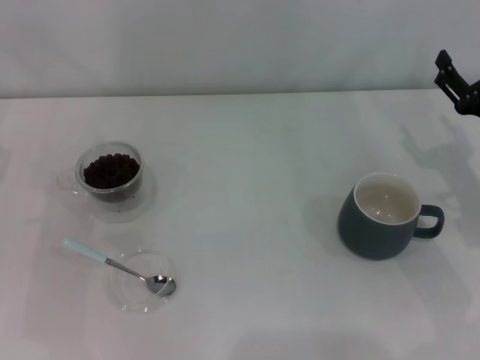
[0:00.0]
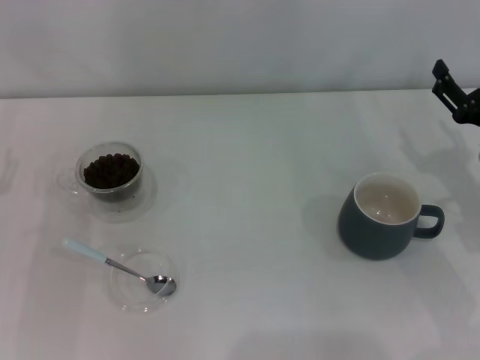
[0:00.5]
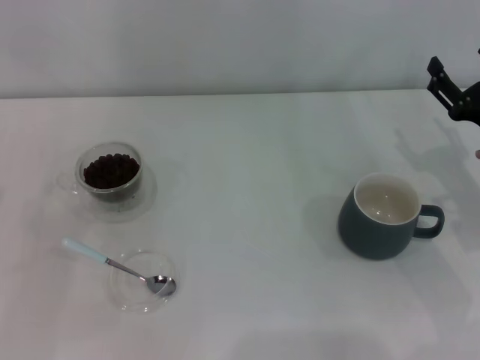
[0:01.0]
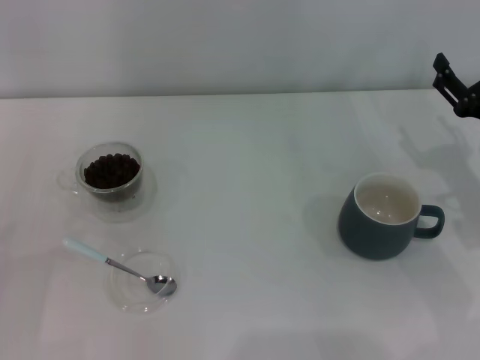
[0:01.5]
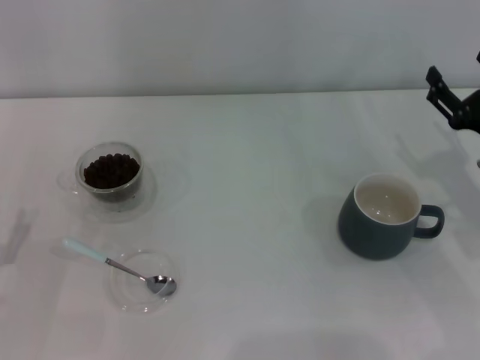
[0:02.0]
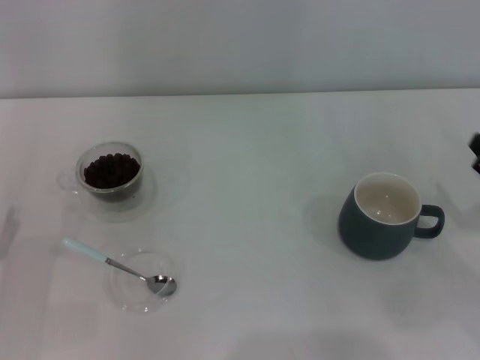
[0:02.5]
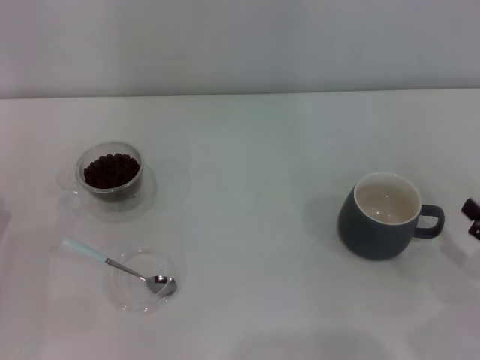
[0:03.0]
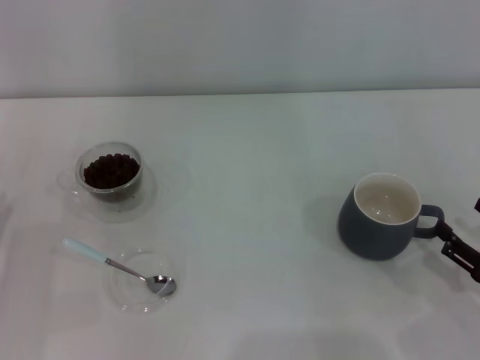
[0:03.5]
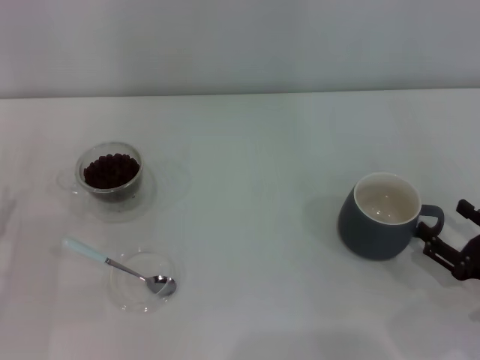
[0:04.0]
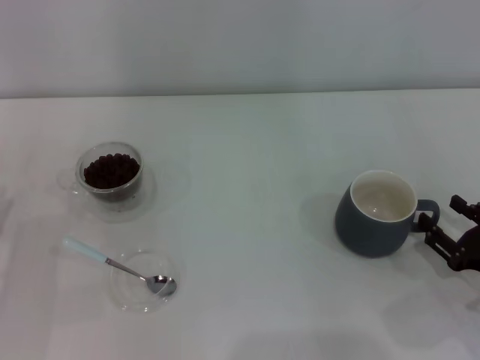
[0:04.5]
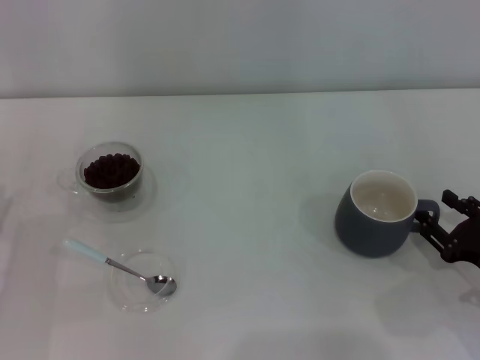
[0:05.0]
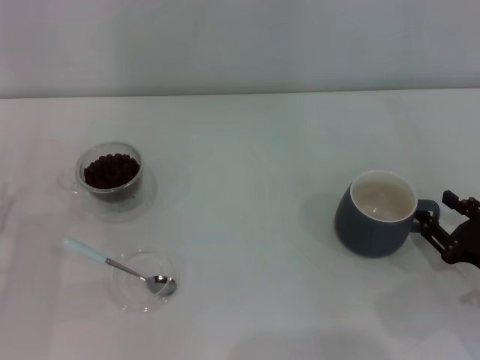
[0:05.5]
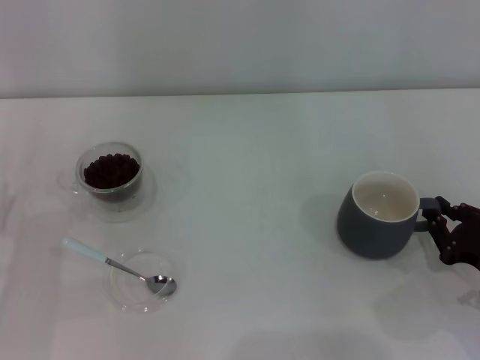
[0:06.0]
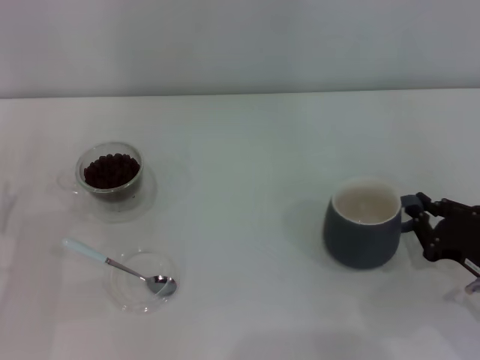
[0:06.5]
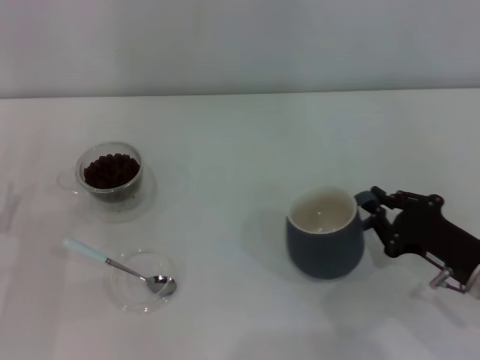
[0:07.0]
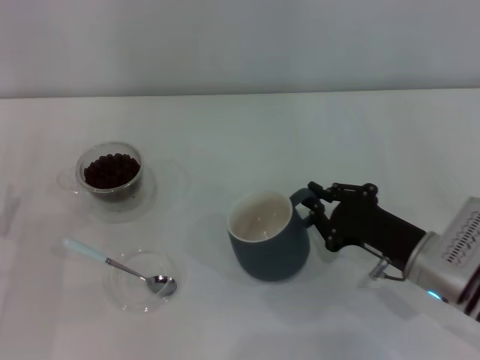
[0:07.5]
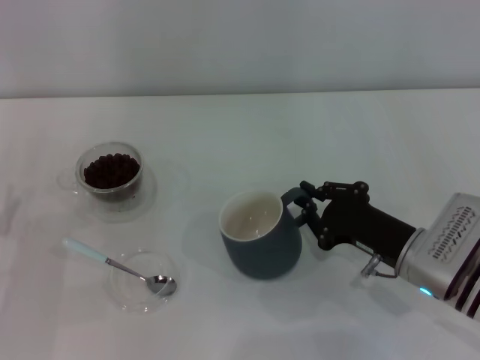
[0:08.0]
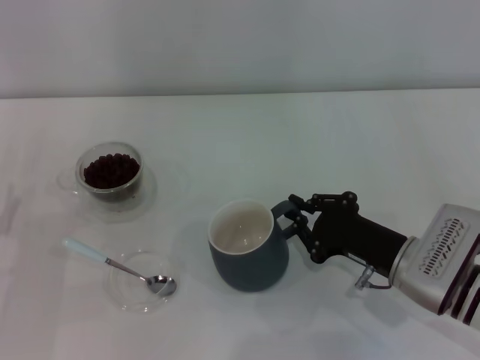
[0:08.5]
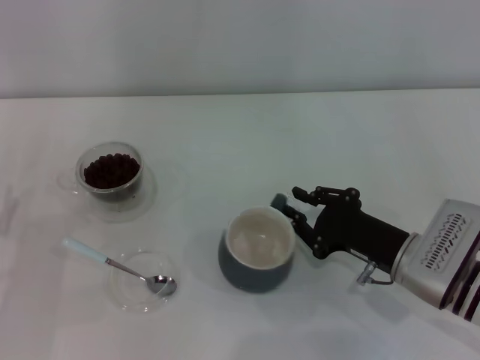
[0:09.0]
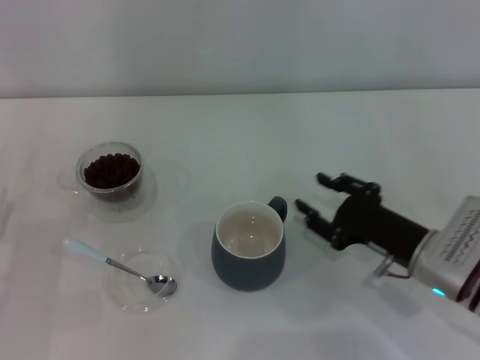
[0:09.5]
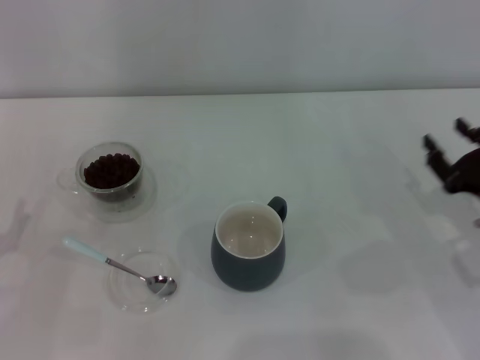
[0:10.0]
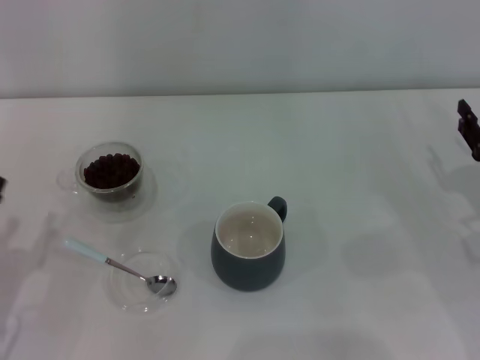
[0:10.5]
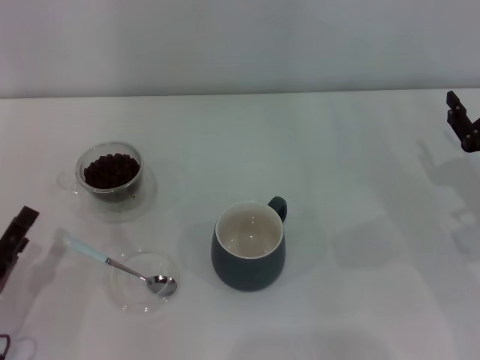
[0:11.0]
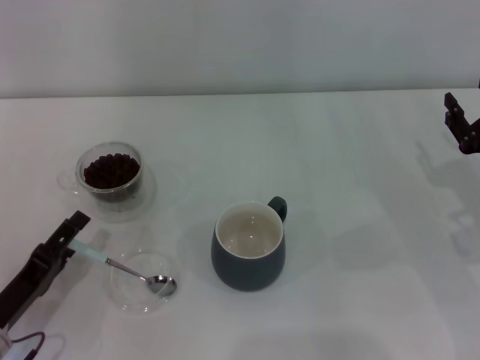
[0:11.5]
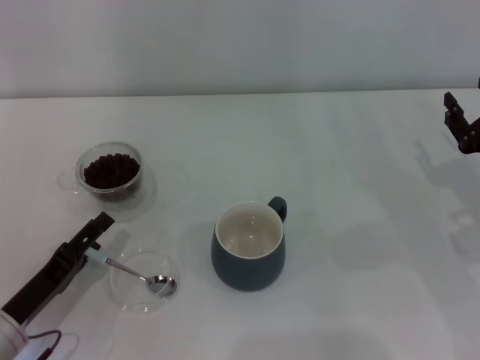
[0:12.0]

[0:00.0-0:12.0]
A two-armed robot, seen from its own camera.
Task of the whole recording: Use a blue spoon to take out the coffee beans from the glass and pour them into the gray cup.
Step, 0:00.0 to 0:09.0: Move the cup to the center of view with the left gripper.
0:02.0 to 0:04.0: The right gripper heads backward and downward, covering roughly 15 cm.
0:04.0 to 0:06.0: The right gripper closes.
0:06.0 to 0:08.0: The right gripper heads to the left and forward, covering about 10 cm.
0:08.0 to 0:10.0: The right gripper travels to the right by about 10 cm, and opens.
0:10.0 to 0:12.0: The left gripper is displaced to the right by some 5 cm.

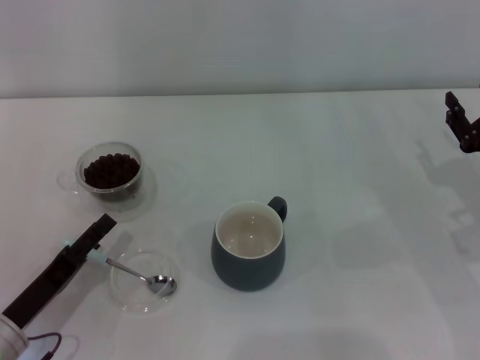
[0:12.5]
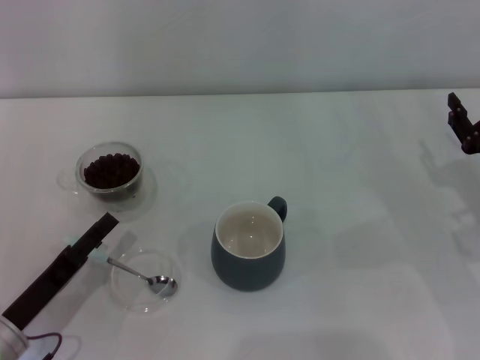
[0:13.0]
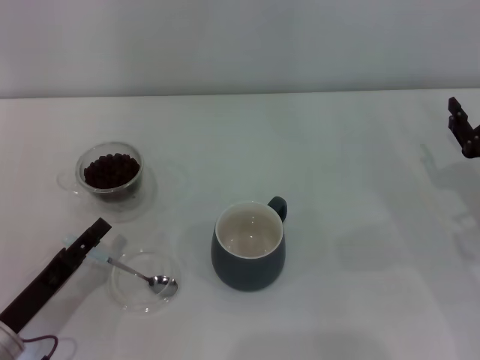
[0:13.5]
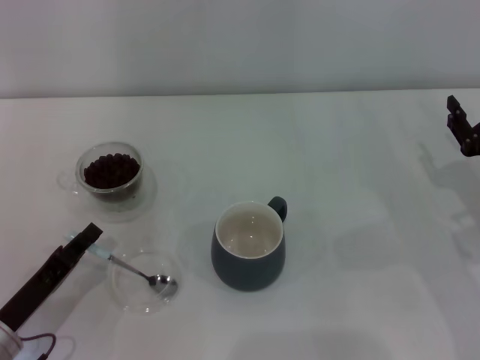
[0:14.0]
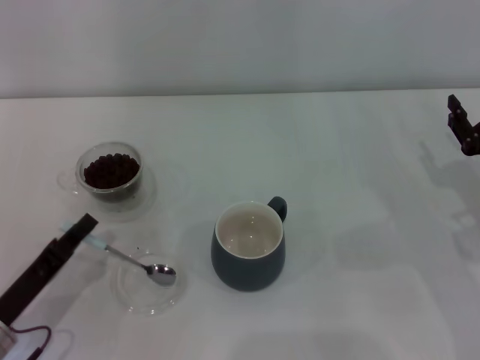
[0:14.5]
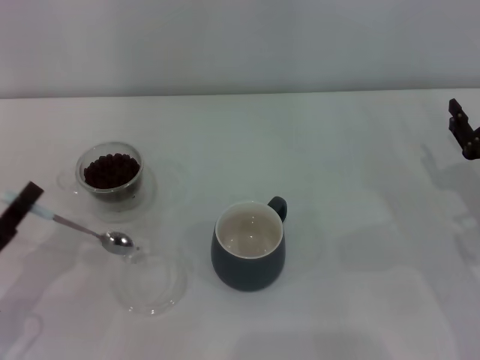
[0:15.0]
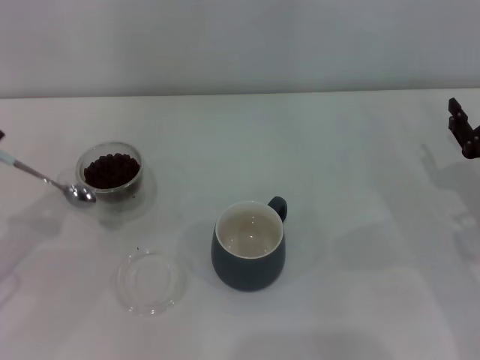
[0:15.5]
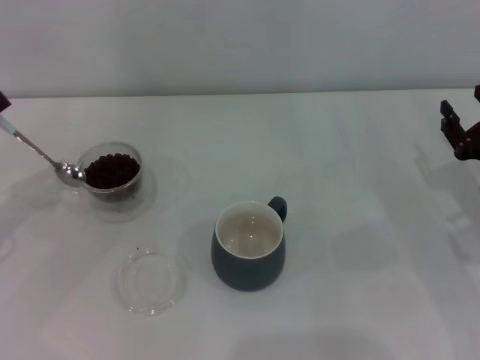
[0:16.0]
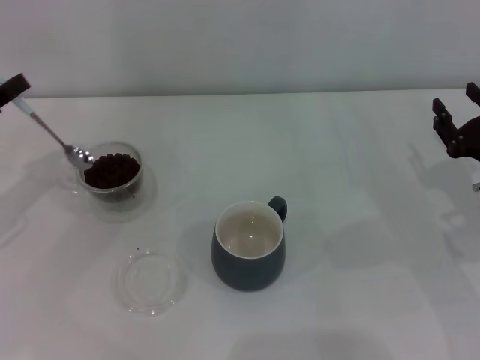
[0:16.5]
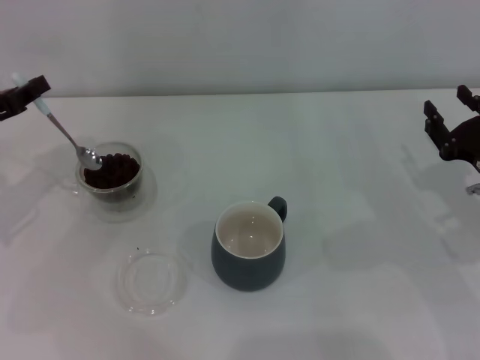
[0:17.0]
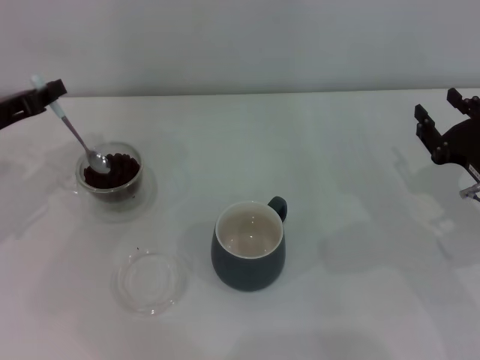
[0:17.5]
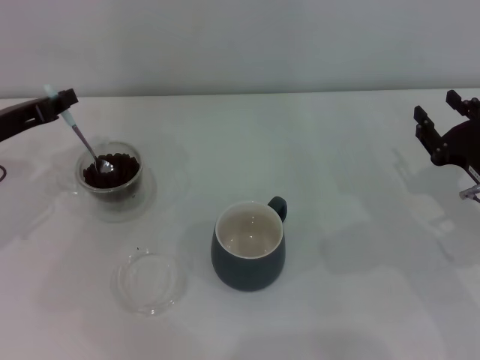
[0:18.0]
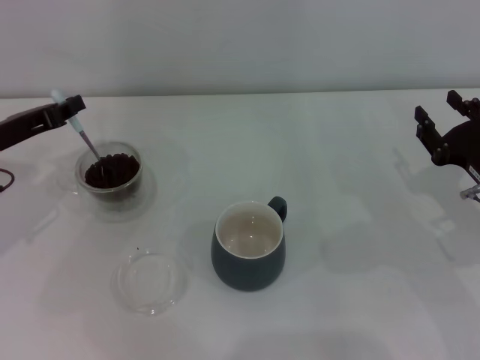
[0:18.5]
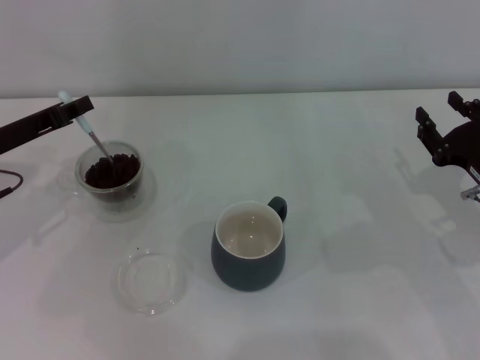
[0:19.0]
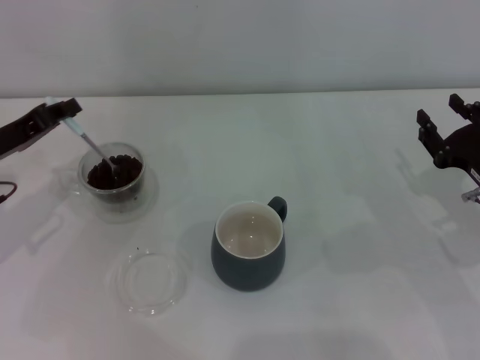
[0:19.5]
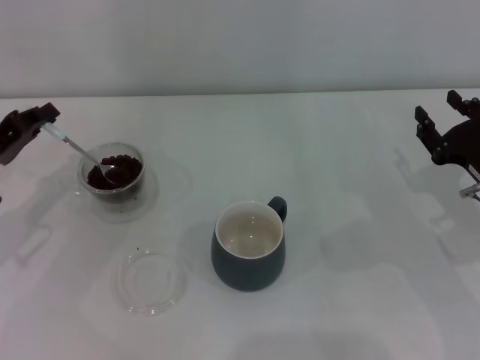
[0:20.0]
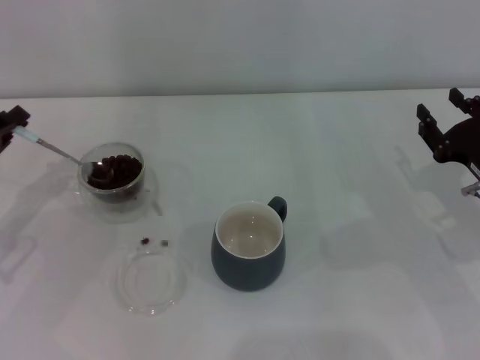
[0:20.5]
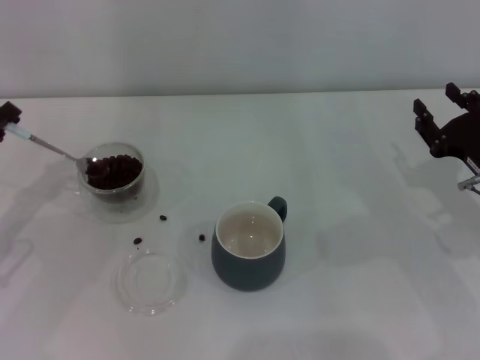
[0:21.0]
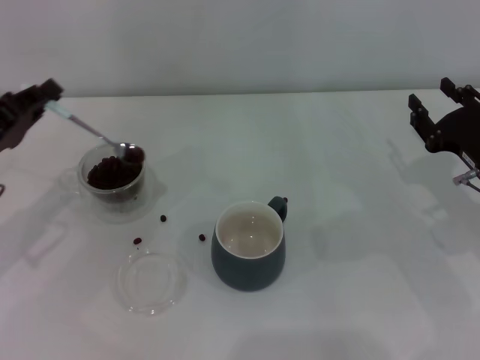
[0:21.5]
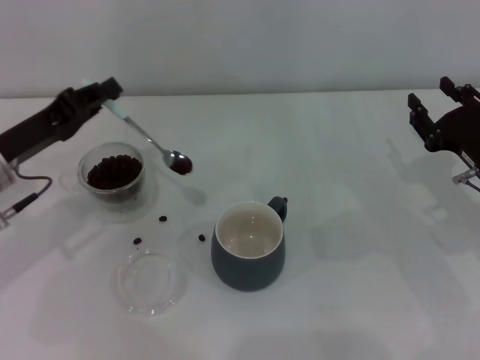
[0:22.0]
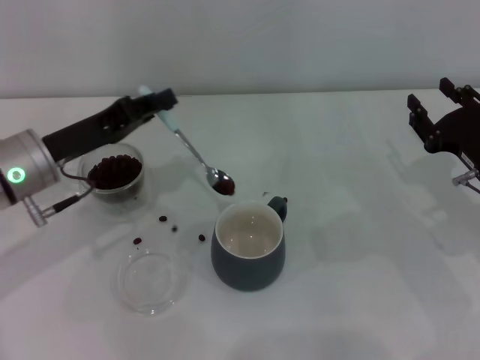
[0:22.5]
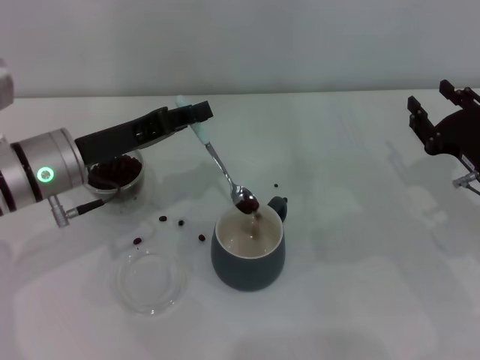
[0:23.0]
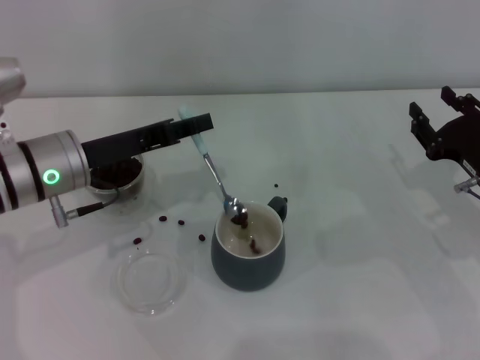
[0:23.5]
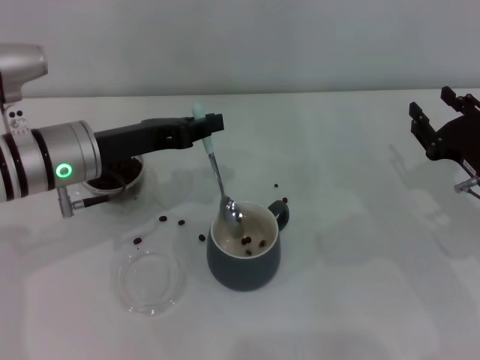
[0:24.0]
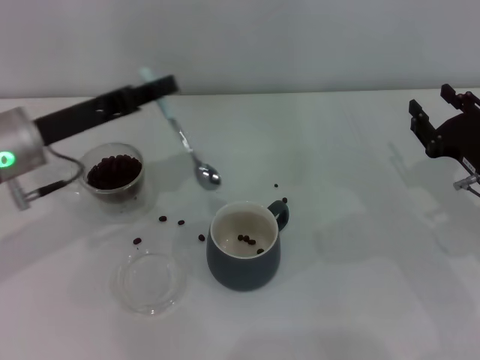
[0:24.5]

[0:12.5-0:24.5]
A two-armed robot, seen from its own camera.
Task of the whole recording: Use a blue spoon to take out the coffee beans from the glass and pour them into the gray cup.
Step, 0:12.5 to 0:14.5: Pick up the spoon with the right gripper.
0:12.5 to 0:14.5: The left gripper closes up.
0:14.5 to 0:16.5: The left gripper heads forward, upward and to the left, covering about 20 cm.
0:16.5 to 0:18.5: The left gripper ends up roughly 5 cm from where it was.
0:18.5 to 0:20.5: The left gripper is displaced backward by approximately 5 cm.
0:20.5 to 0:22.5: The left gripper travels to the right by about 10 cm.

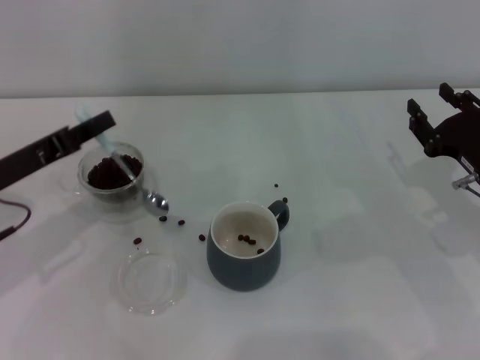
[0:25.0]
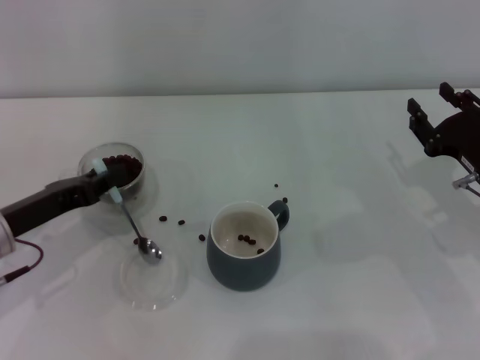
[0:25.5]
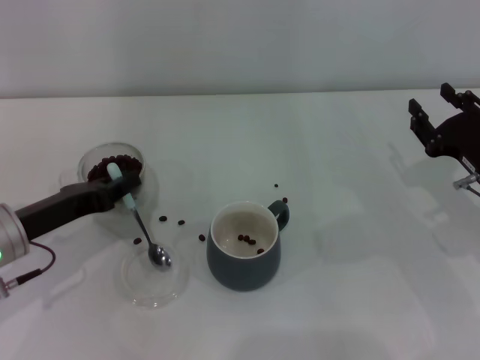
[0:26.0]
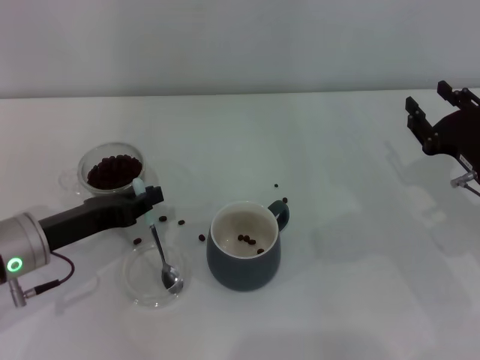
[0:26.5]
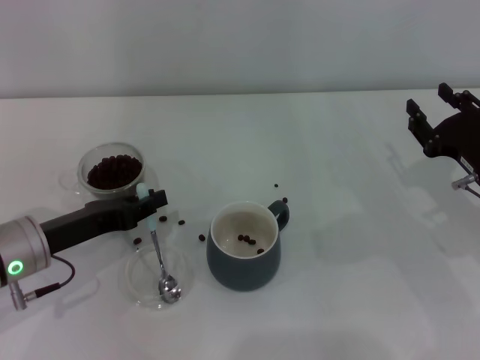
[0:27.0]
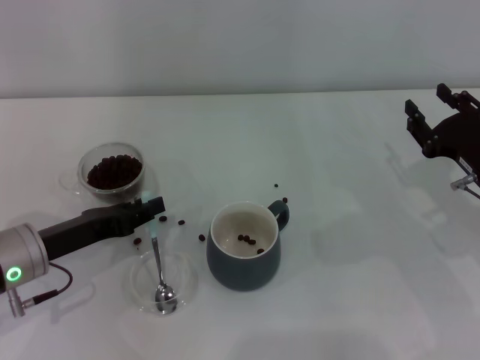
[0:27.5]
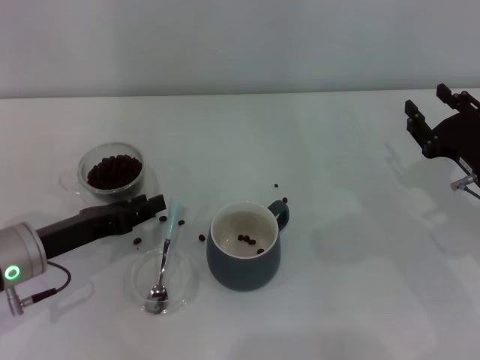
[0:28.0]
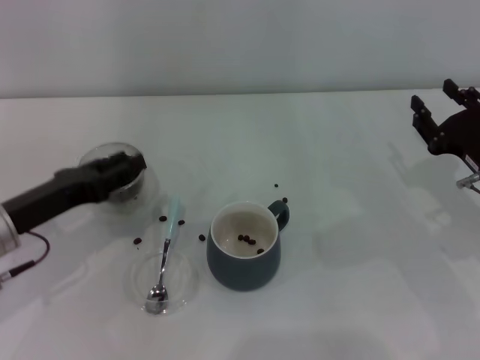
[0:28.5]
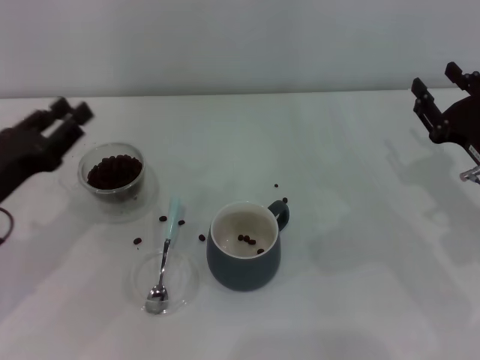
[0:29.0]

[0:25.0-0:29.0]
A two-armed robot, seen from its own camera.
Task of the whole recording: Use a blue spoon to take out the coffee beans from the glass and pour them into the gray cup.
0:25.0 to 0:27.0: The left gripper shifts by about 5 cm.
0:27.0 to 0:29.0: The left gripper shifts by about 5 cm, and opens.
